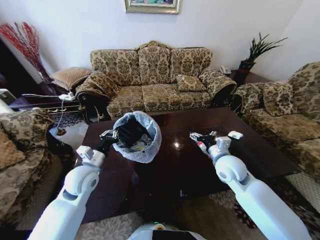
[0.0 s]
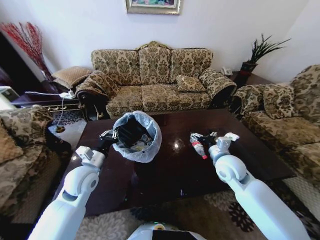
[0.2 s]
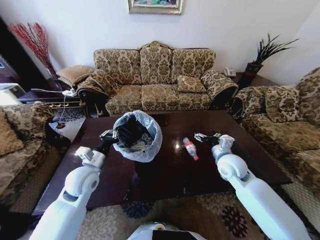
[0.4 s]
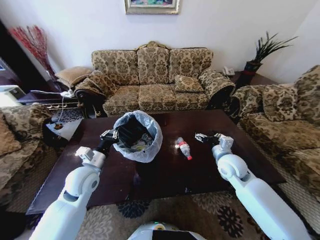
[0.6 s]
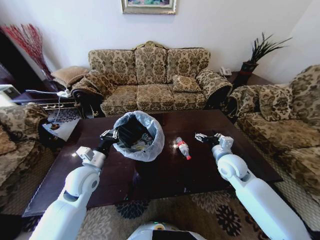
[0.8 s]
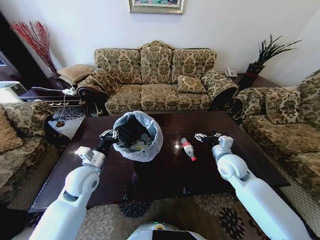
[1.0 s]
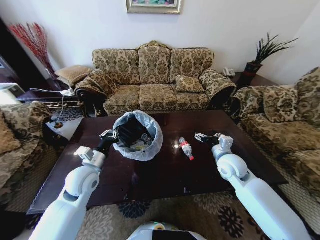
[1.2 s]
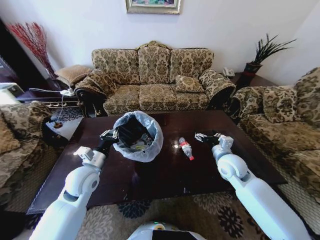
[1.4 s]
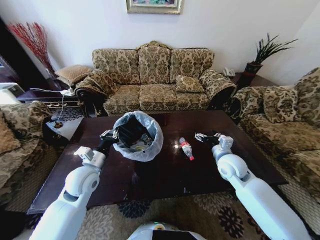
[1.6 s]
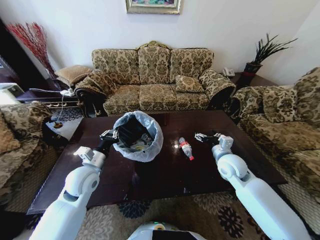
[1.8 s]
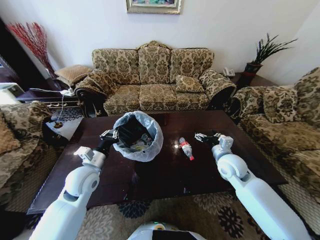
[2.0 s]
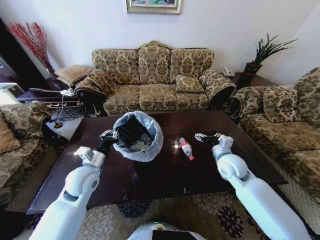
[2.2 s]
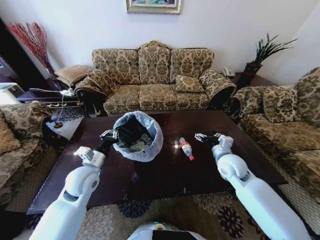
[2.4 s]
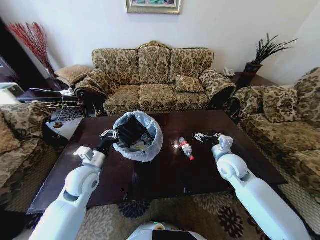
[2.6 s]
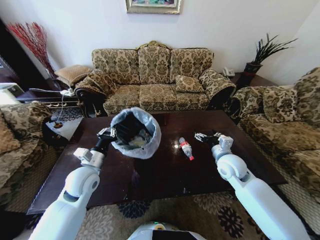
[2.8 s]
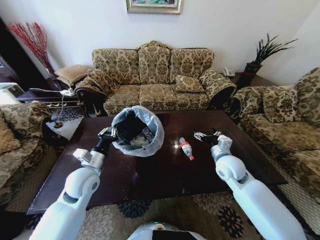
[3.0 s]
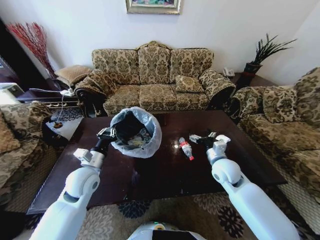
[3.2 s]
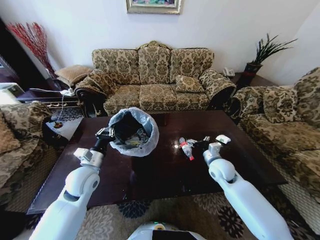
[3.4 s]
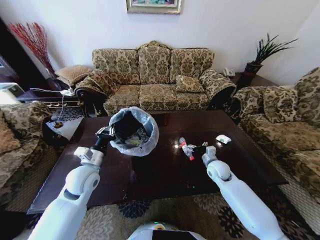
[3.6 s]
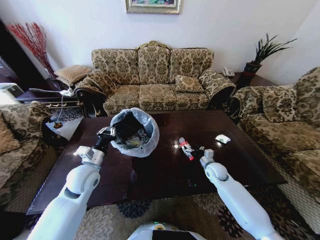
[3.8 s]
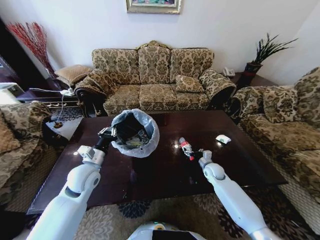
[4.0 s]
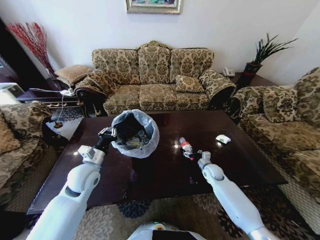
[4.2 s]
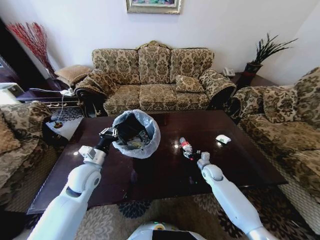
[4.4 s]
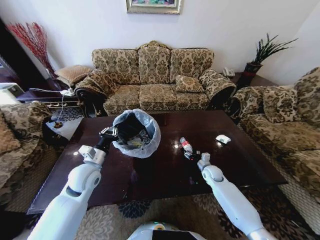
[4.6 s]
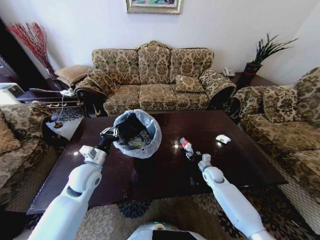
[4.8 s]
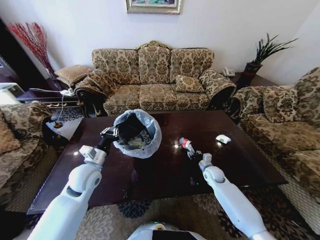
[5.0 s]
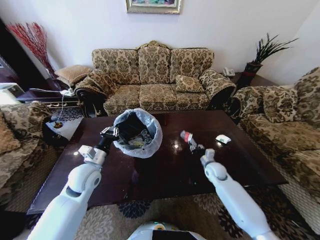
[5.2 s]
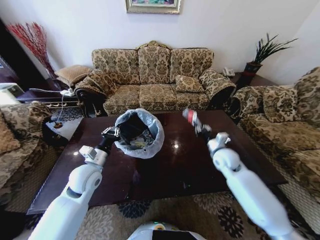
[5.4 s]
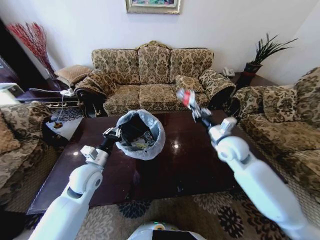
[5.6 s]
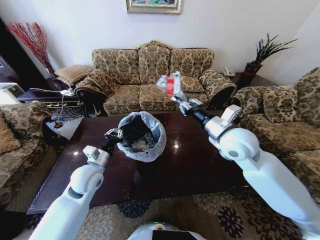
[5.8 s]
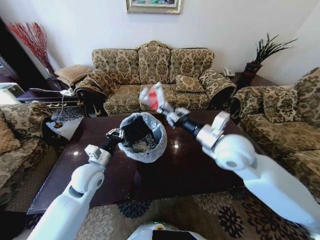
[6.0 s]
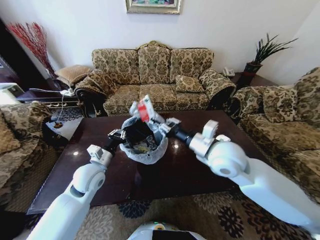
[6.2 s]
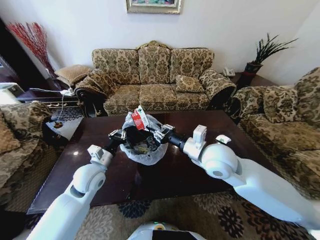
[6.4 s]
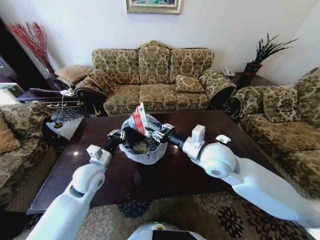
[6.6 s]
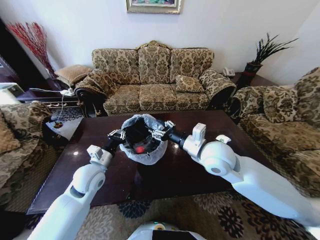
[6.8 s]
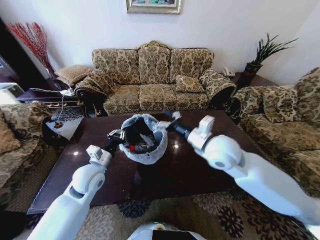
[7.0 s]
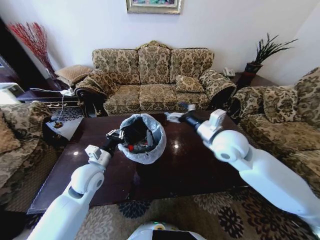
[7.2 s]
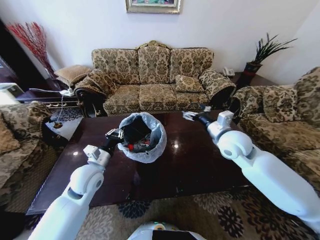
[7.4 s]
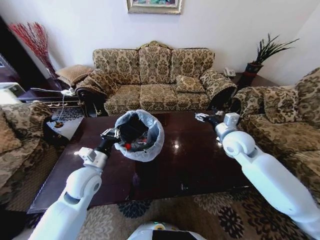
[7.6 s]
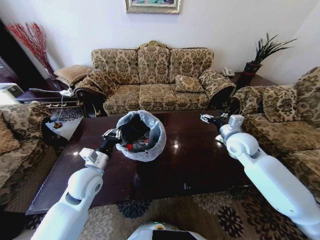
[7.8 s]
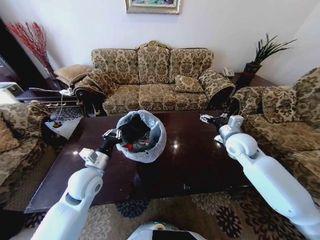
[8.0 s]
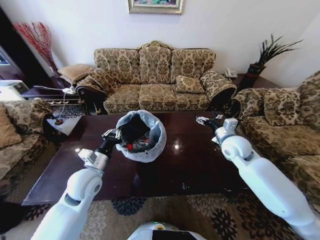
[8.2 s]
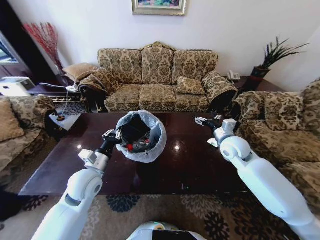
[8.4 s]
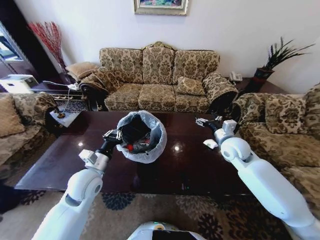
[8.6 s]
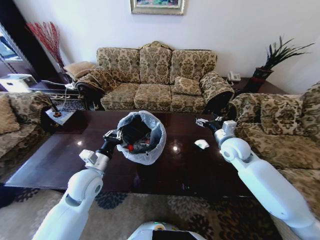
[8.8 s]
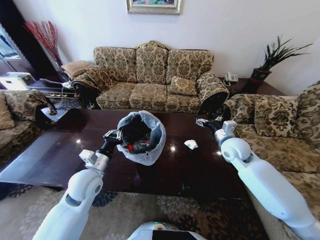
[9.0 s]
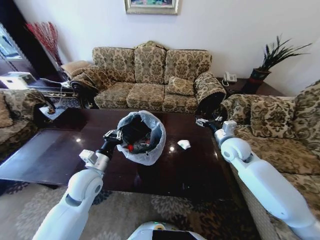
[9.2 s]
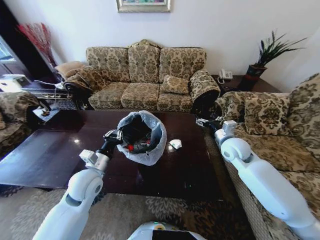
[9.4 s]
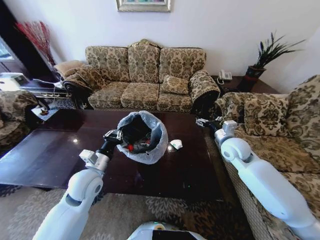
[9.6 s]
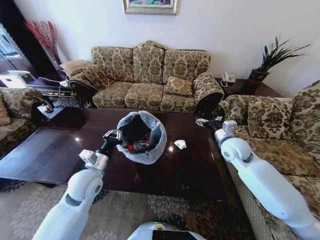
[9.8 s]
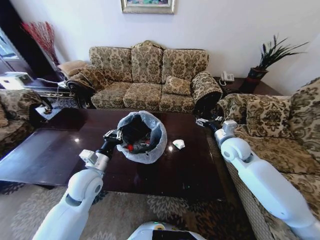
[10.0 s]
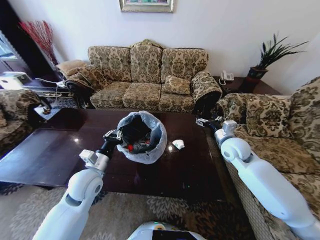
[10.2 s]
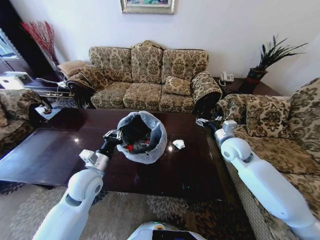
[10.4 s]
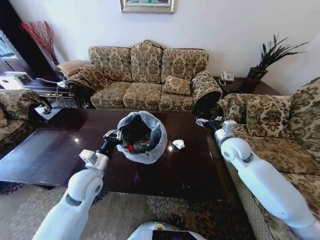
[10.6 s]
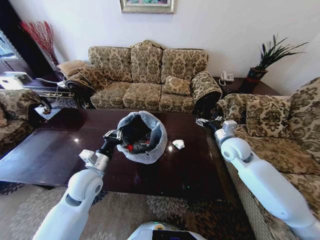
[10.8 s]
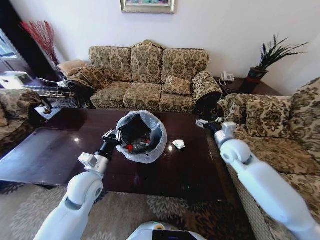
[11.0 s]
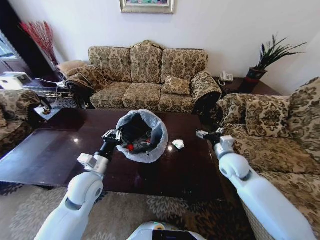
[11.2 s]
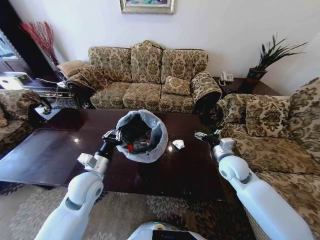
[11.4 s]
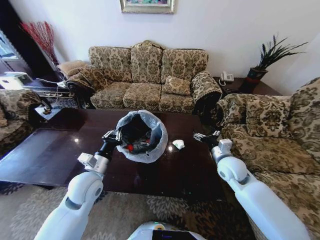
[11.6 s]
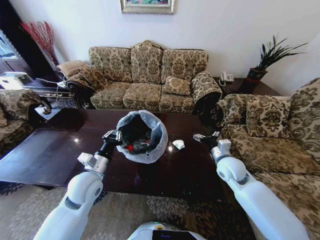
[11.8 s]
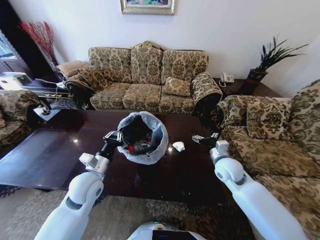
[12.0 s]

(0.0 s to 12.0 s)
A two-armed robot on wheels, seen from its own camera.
Task of the whole recording: Move to the front of the table and place the trash on the table into the trash bin.
1.6 s - 3.0 s: The grippers move only a little.
3.0 s - 4.4 s: The right gripper is displaced downward by approximately 20 cm.
4.4 s - 6.0 s: The right gripper moves upward, about 35 cm, and closes its fingers.
6.0 s - 7.6 s: The right gripper moves forward, to the right and downward, about 10 cm, and opens.
10.4 s - 12.0 s: The right gripper is displaced downward and backward by roughly 10 cm.

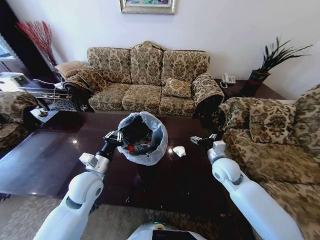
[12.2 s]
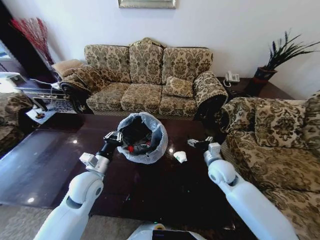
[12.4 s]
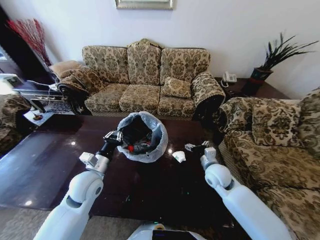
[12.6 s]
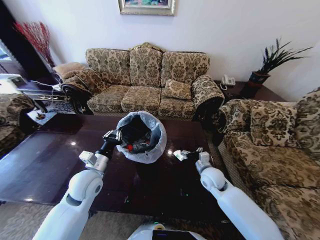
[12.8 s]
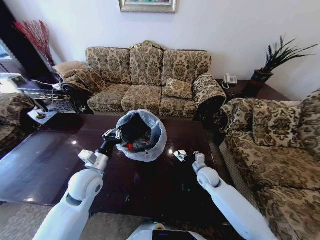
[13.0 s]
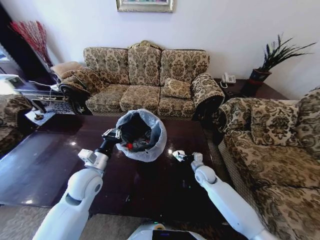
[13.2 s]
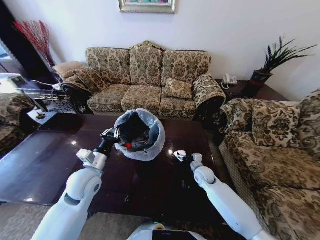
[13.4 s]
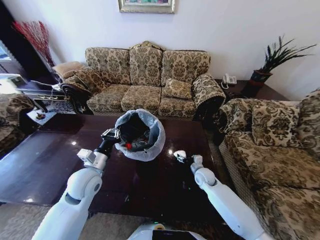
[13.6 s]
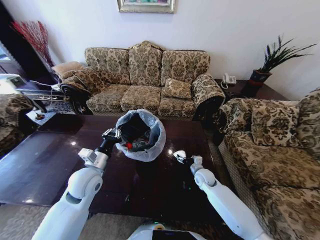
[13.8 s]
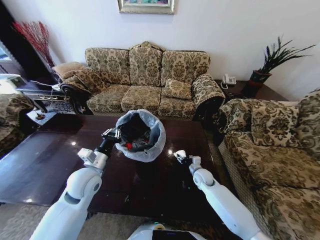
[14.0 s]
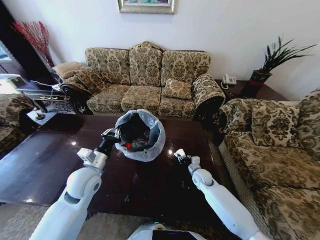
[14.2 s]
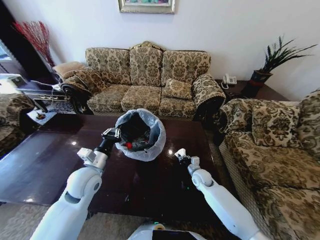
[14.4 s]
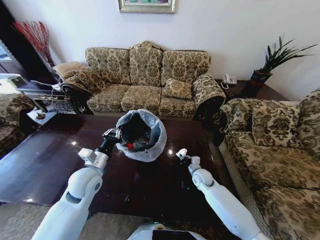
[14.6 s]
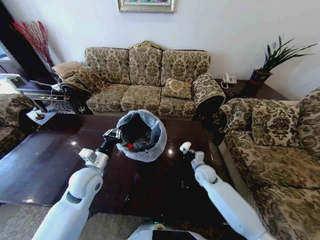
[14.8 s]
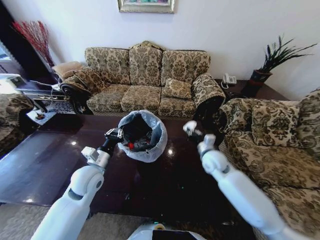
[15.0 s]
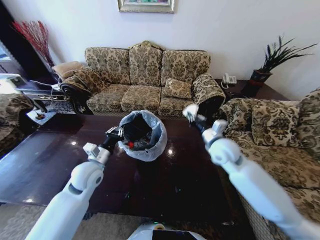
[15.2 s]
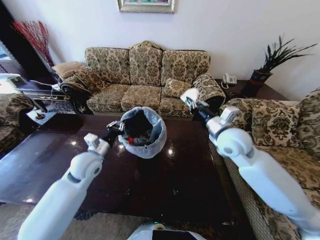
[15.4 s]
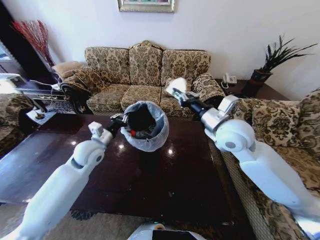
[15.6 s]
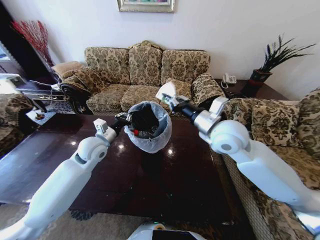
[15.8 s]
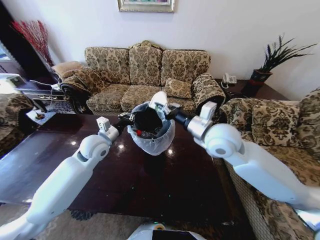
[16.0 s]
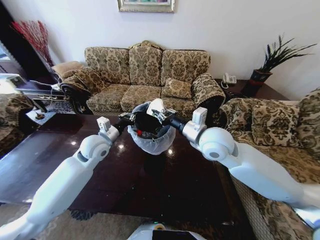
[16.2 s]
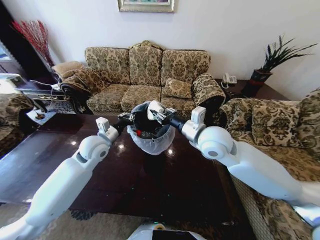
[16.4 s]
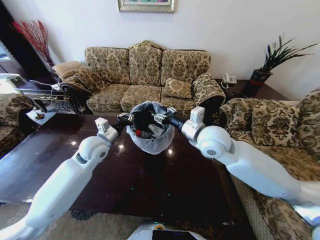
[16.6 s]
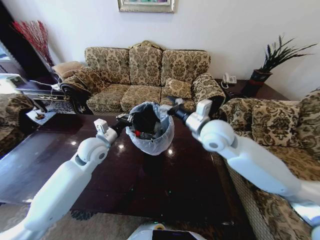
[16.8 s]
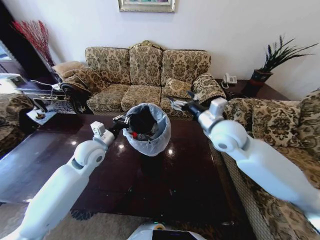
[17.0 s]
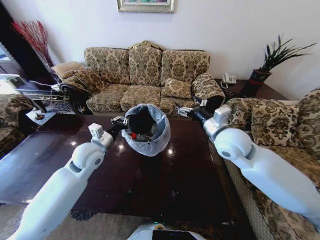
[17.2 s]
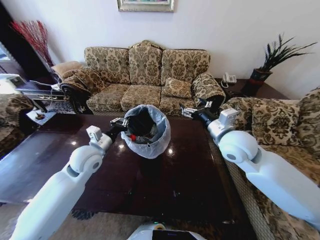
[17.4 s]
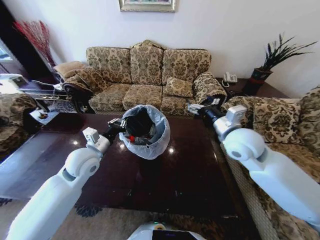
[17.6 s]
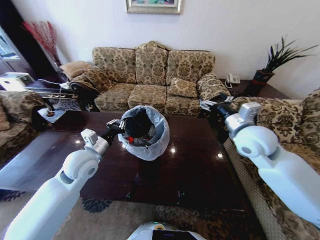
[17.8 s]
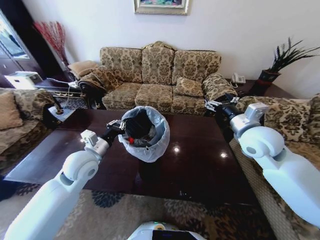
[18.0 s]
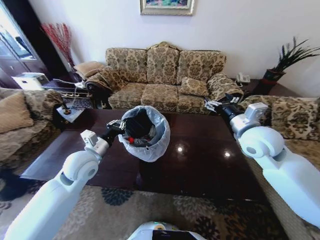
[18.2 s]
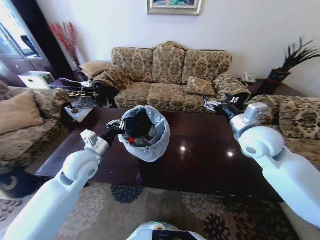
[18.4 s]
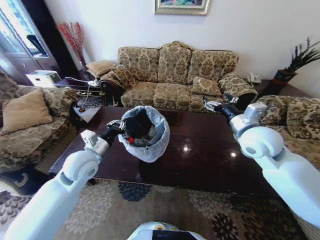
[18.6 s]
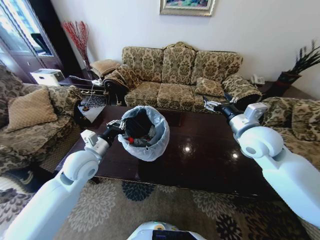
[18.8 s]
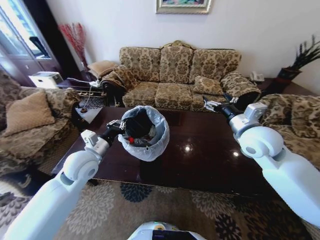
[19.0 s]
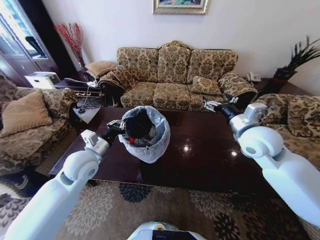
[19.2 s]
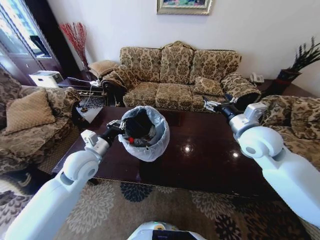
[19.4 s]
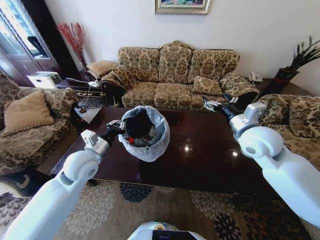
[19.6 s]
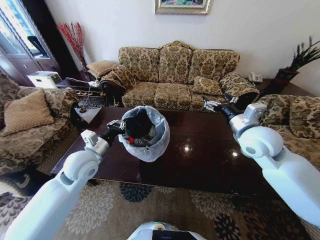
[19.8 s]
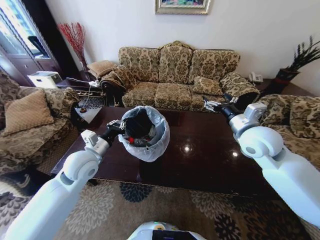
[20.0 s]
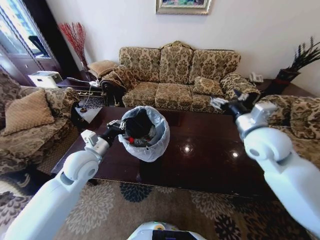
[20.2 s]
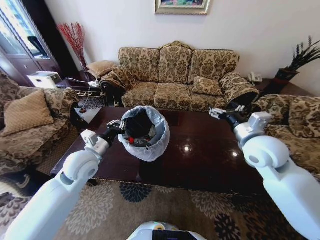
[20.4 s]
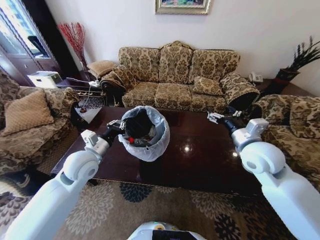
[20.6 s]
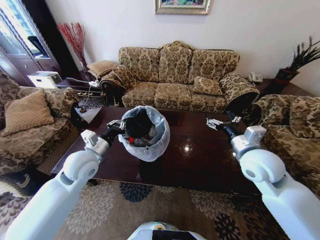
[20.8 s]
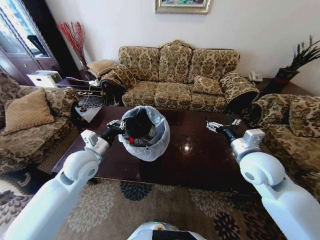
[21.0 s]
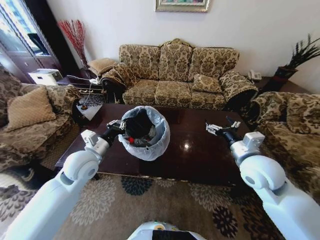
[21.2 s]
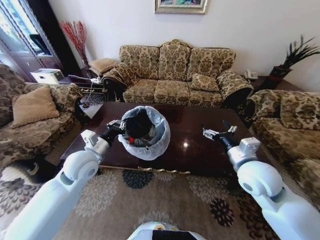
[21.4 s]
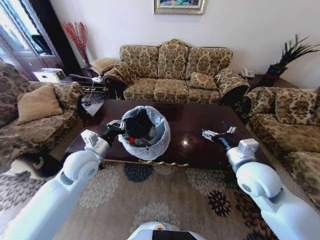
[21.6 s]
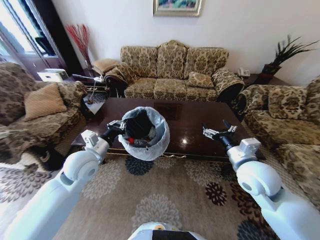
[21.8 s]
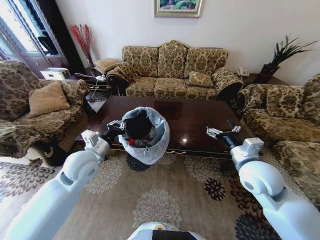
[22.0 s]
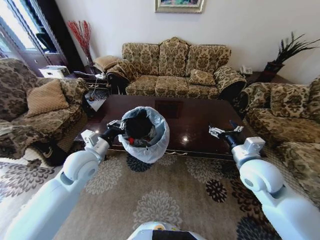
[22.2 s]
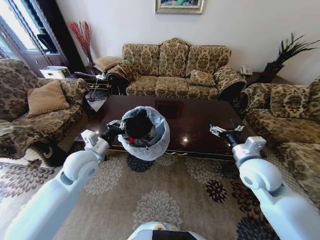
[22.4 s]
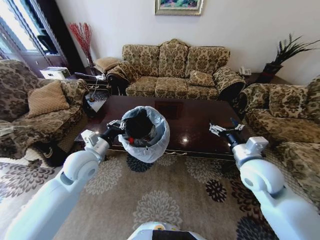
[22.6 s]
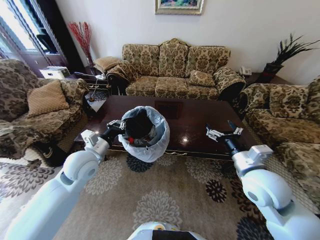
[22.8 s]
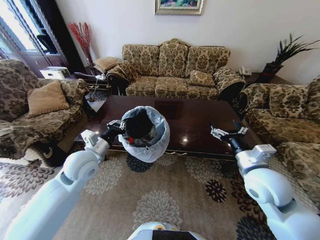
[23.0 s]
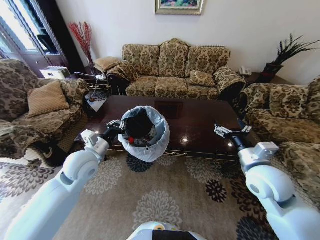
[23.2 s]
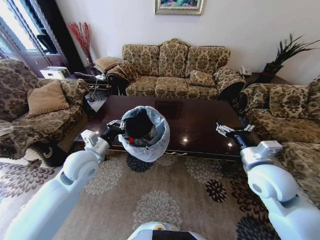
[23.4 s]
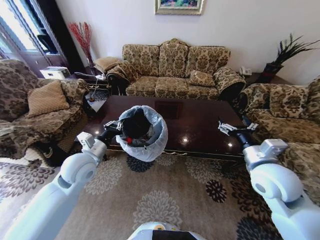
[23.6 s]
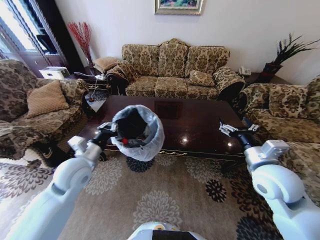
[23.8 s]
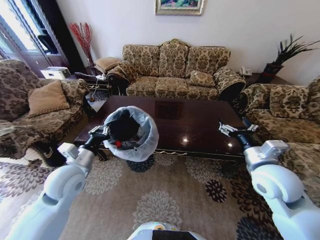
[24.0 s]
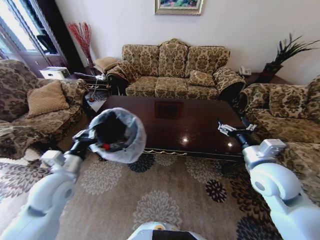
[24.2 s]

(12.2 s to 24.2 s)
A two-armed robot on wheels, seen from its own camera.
Task of the whole recording: Move to the front of the table and place the trash on the table into the trash bin.
12.2 s - 13.8 s: The right gripper is displaced downward by approximately 15 cm.
13.8 s - 15.2 s: The right gripper is displaced upward by some 25 cm, and closes.
15.2 s - 16.6 s: The right gripper moves upward and to the left, about 10 cm, and opens up; the left gripper shifts some 10 cm forward and upward.
16.6 s - 18.2 s: The left gripper travels backward by roughly 5 cm, while the right gripper moves to the right, roughly 15 cm, and opens up.
19.8 s - 21.2 s: The right gripper is displaced backward and downward by approximately 10 cm.
22.6 s - 24.2 s: The left gripper travels backward and to the left by roughly 10 cm.
